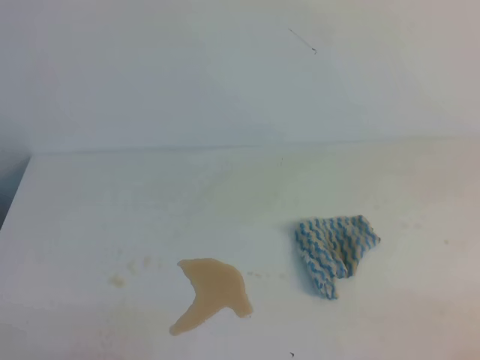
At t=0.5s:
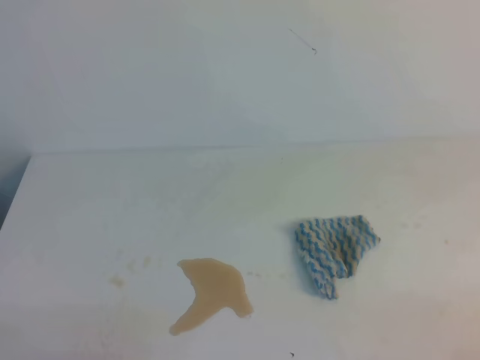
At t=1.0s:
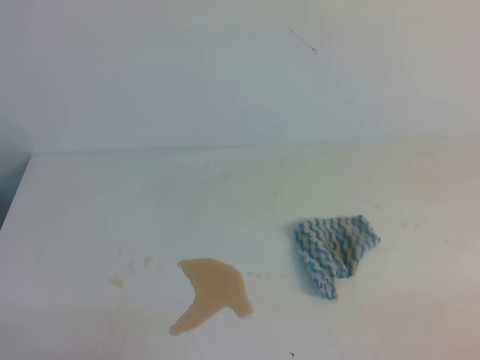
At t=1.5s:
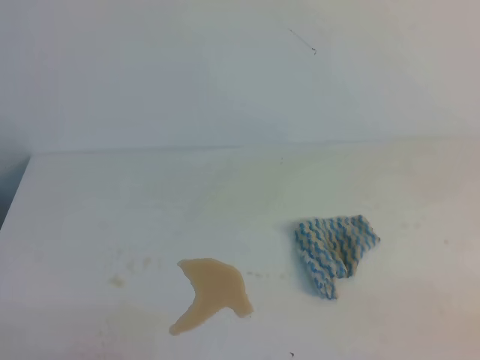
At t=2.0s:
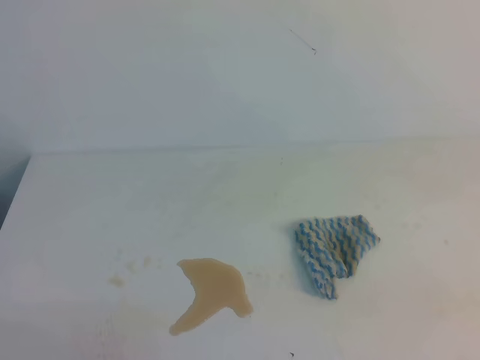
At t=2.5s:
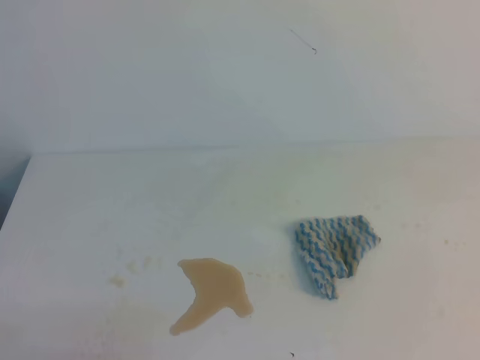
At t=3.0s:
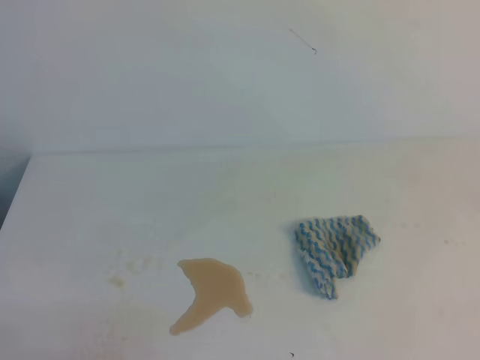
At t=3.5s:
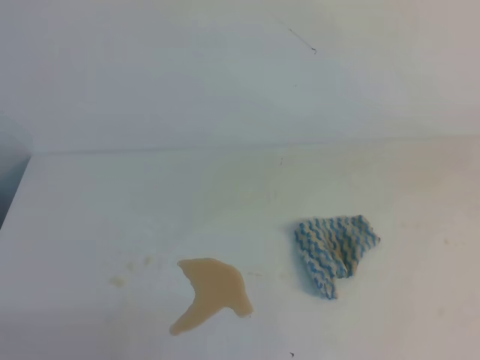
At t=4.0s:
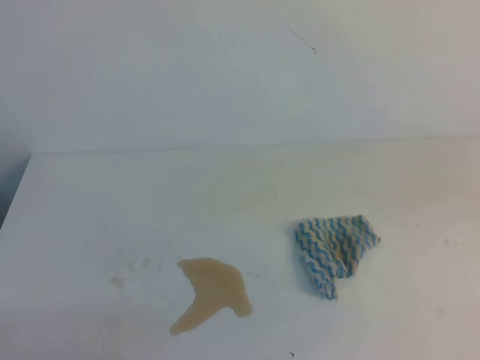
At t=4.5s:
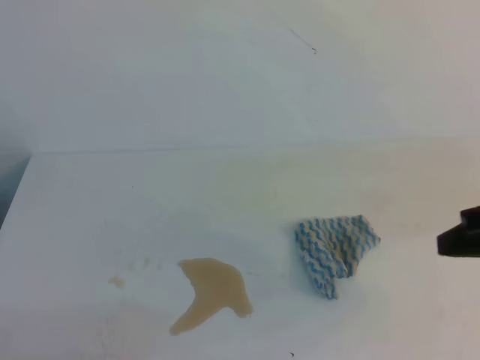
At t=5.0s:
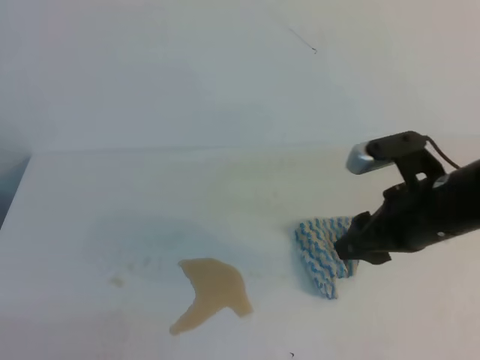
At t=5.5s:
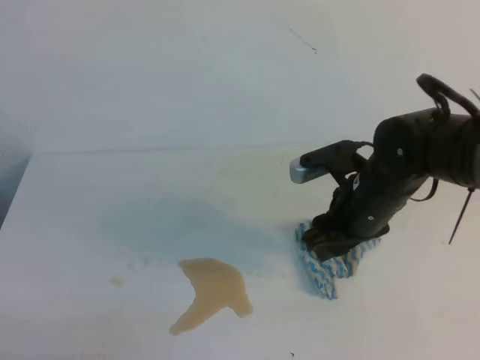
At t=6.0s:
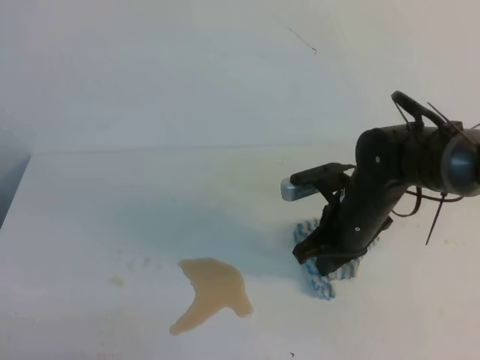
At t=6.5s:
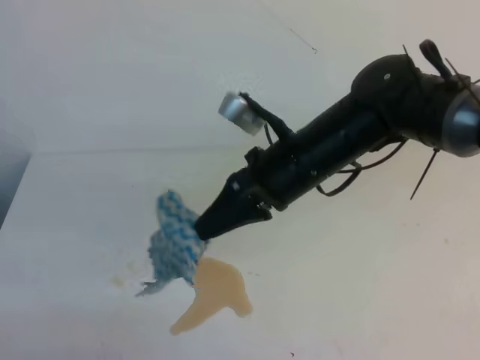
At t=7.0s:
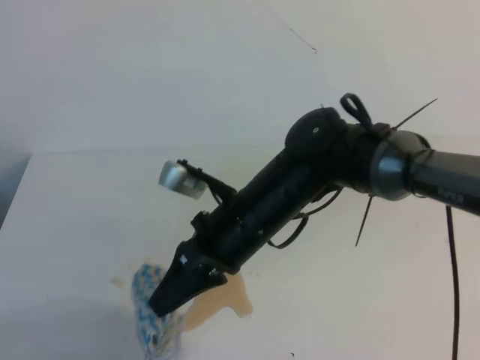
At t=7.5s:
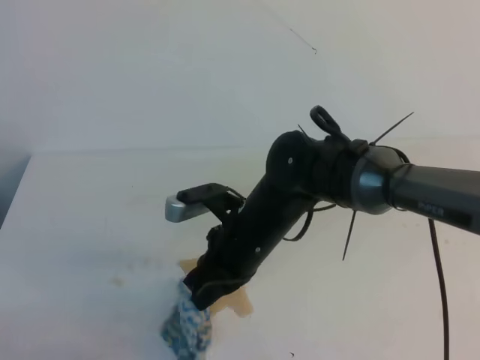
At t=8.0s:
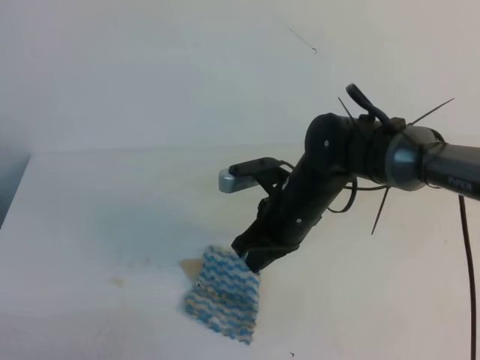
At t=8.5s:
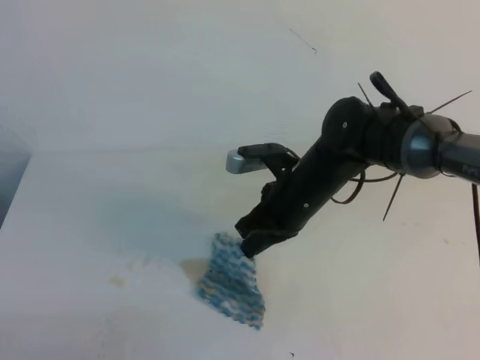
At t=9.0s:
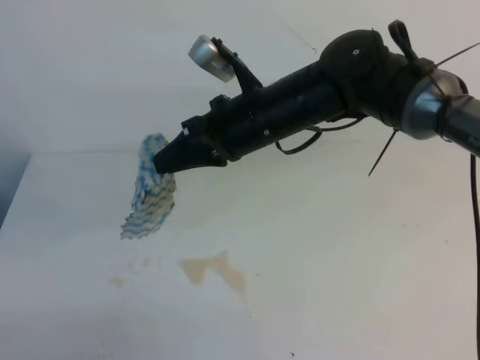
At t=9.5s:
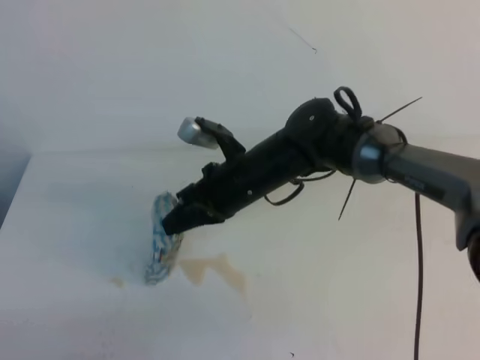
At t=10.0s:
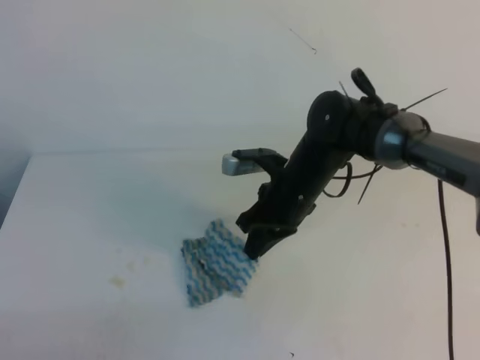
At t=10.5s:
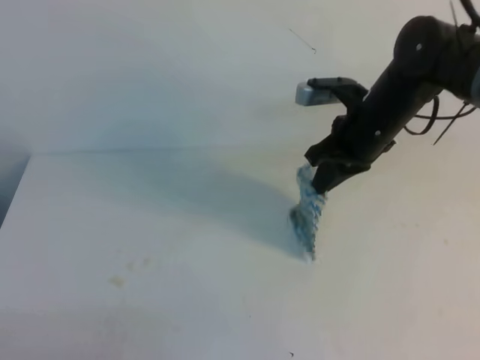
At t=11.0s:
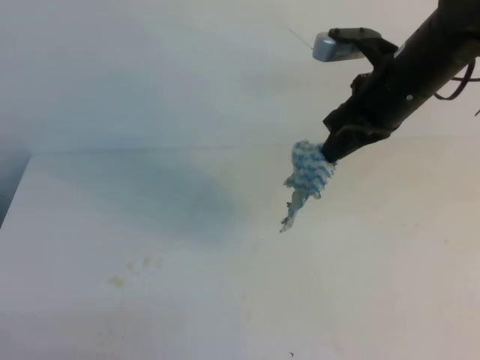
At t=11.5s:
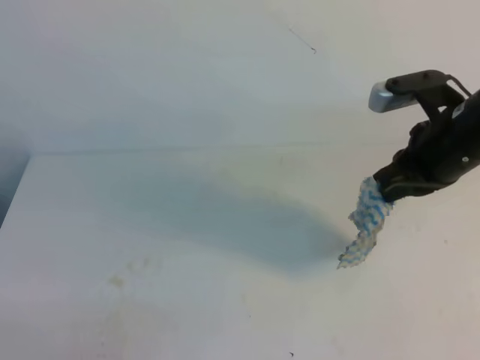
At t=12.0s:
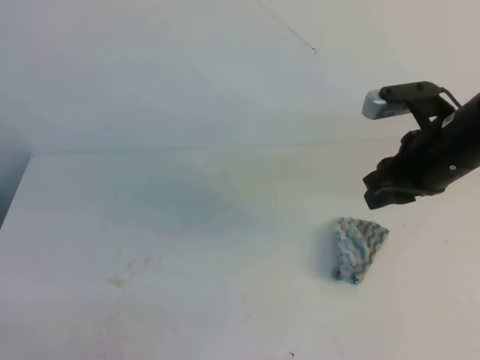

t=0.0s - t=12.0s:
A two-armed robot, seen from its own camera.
t=4.0s - t=6.0s: The right gripper is displaced to the left, downward and forward by some 30 cm, and opens and closes again.
t=6.0s - t=8.0s: The right gripper moves to the left, roughly 5 cm.
t=8.0s - t=10.0s: The right gripper moves some 10 cm upward and comes back.
t=10.0s - t=12.0s: The right gripper is displaced to the right and upward by about 20 cm, and opens its fingers.

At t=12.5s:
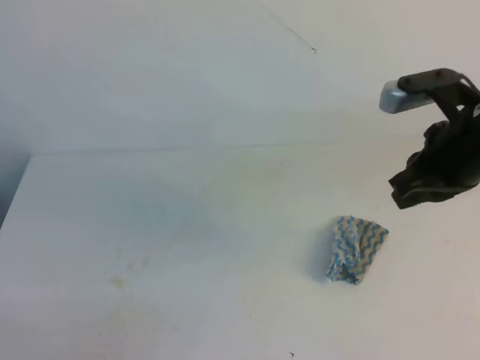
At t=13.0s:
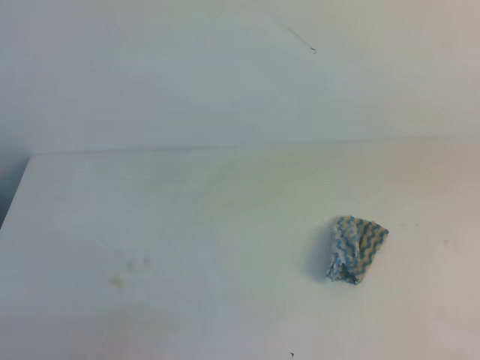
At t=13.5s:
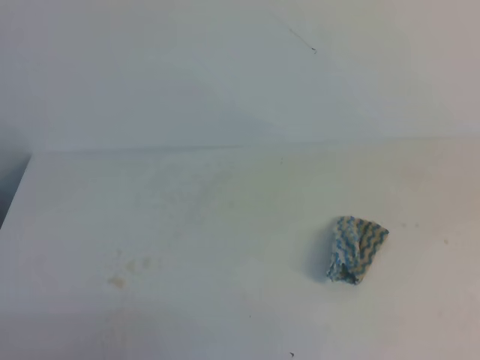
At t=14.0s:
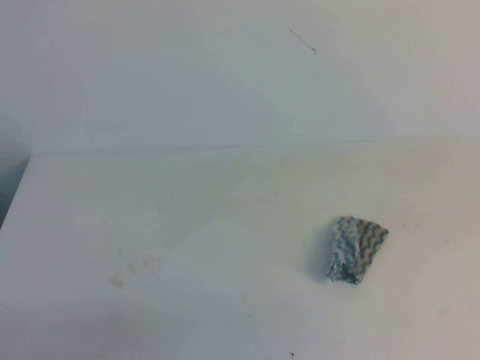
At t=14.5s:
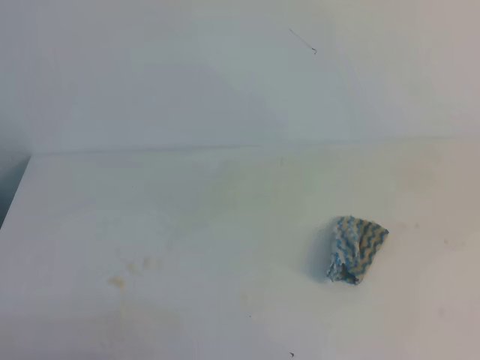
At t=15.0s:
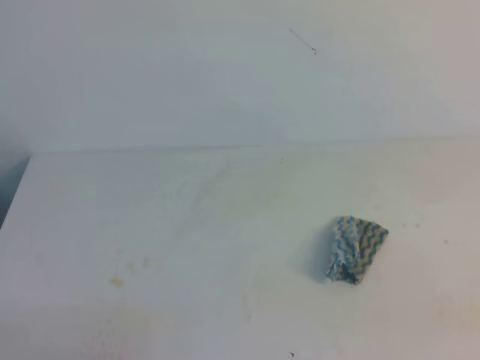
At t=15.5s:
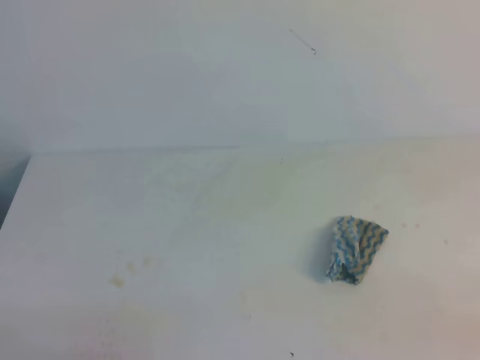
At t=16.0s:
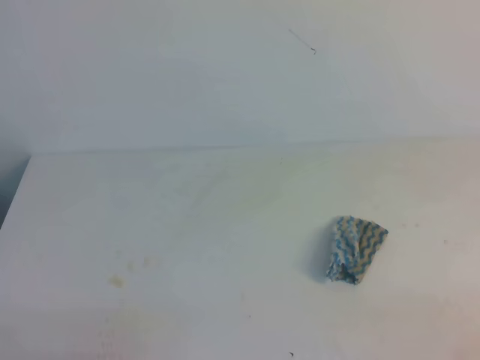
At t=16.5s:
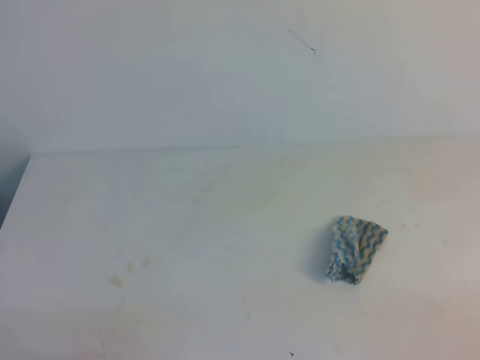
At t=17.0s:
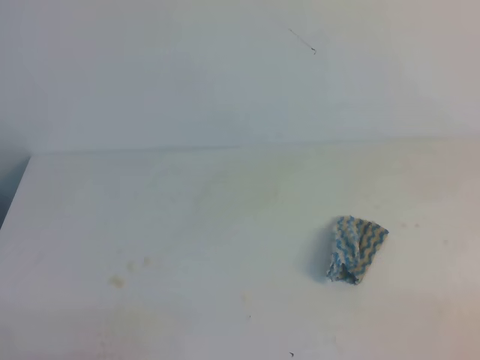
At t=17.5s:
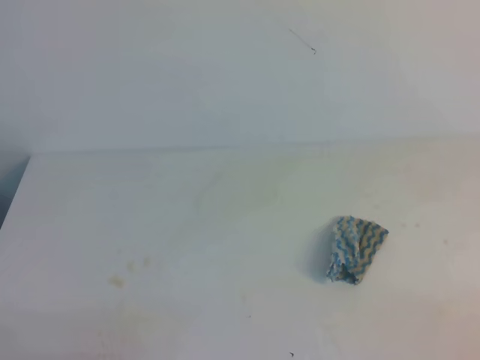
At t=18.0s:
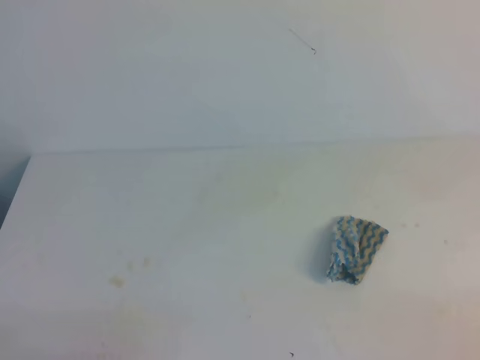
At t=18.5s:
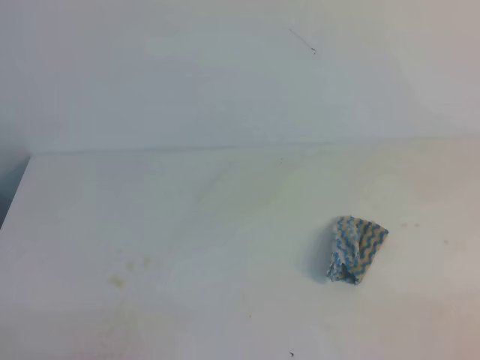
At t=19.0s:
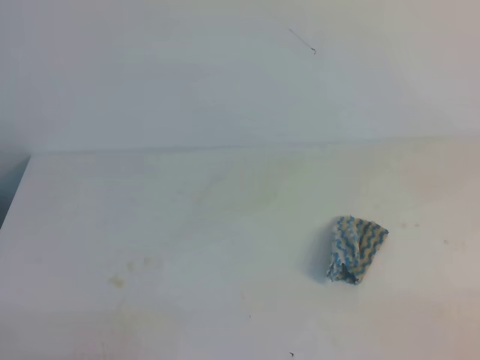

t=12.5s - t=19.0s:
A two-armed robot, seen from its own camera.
t=12.5s - t=14.5s: The right gripper travels backward and to the right by about 25 cm.
t=17.0s - t=19.0s: Both grippers stay about where they are.
